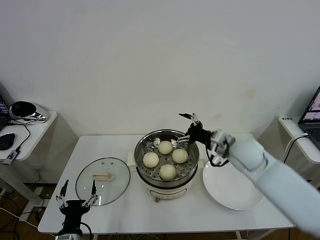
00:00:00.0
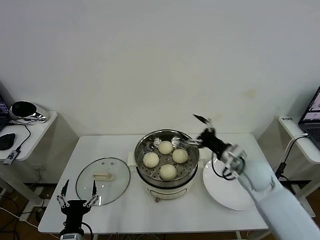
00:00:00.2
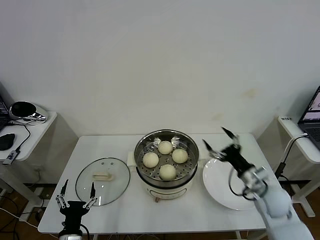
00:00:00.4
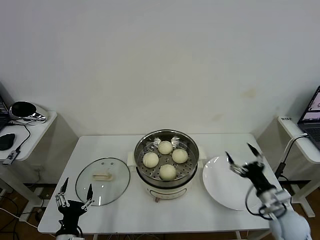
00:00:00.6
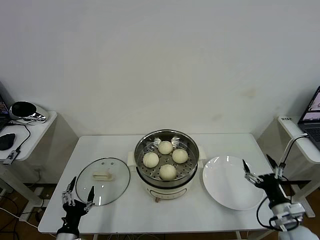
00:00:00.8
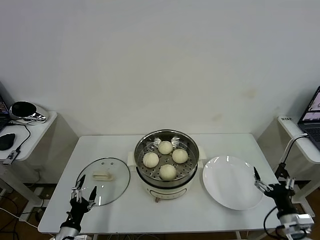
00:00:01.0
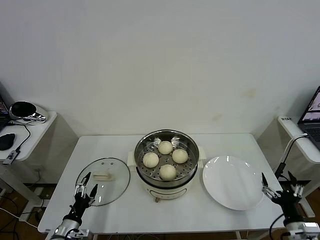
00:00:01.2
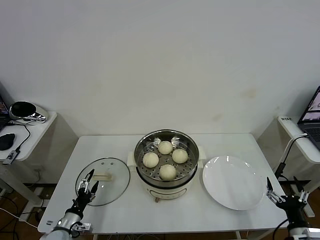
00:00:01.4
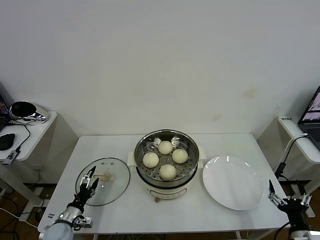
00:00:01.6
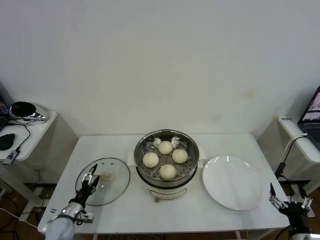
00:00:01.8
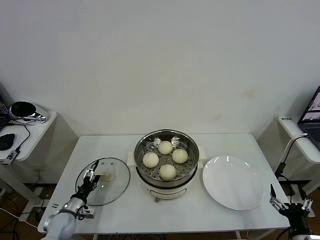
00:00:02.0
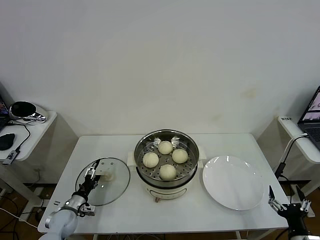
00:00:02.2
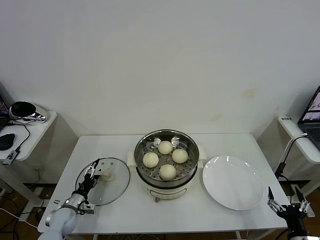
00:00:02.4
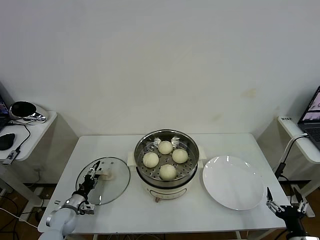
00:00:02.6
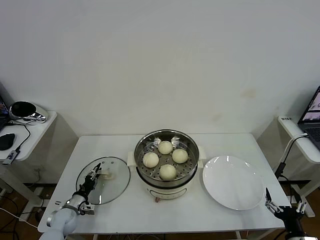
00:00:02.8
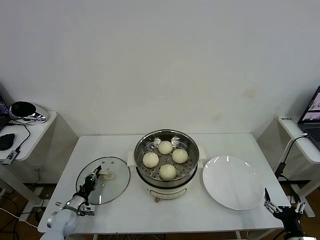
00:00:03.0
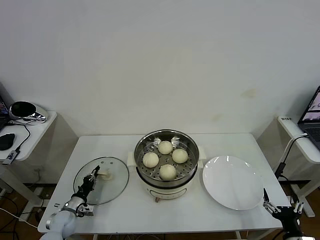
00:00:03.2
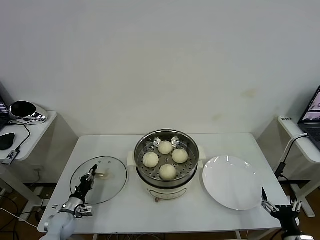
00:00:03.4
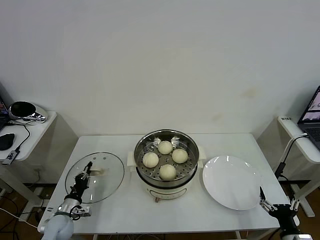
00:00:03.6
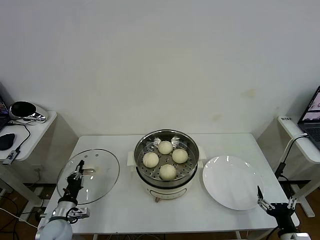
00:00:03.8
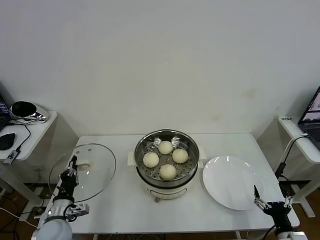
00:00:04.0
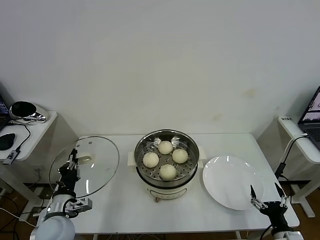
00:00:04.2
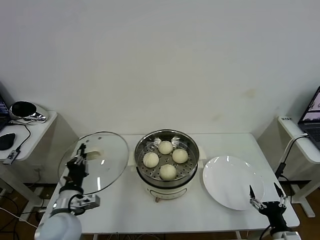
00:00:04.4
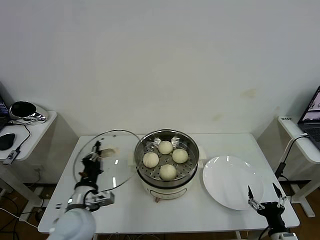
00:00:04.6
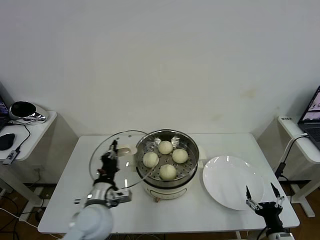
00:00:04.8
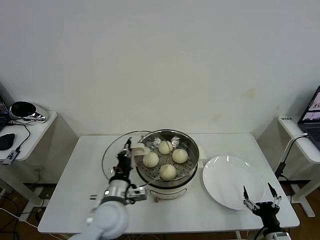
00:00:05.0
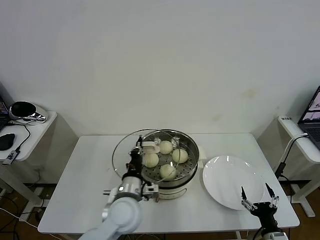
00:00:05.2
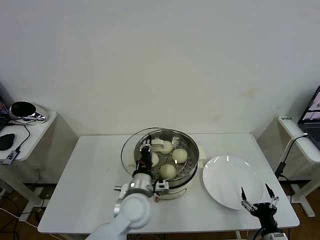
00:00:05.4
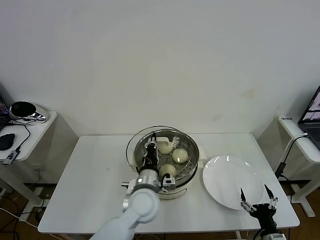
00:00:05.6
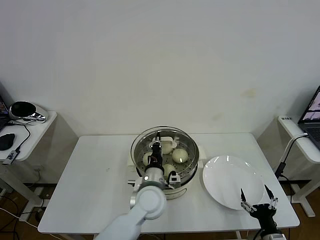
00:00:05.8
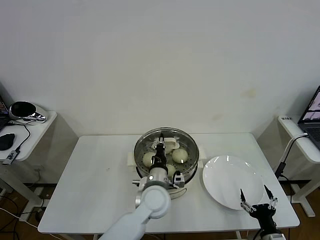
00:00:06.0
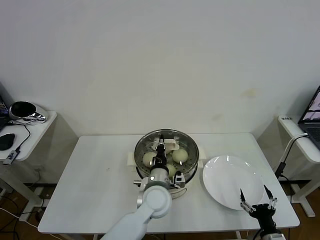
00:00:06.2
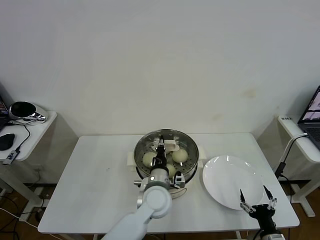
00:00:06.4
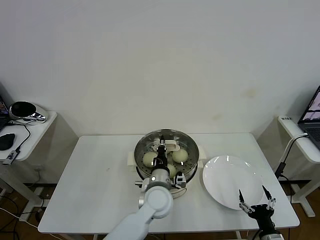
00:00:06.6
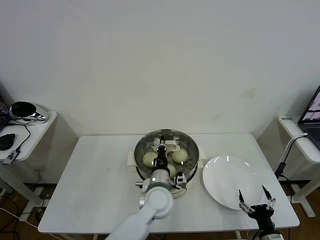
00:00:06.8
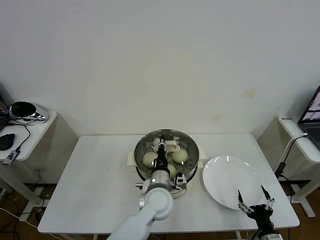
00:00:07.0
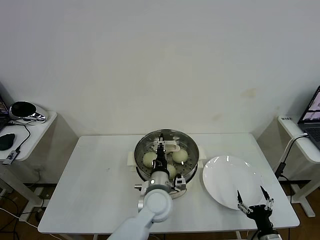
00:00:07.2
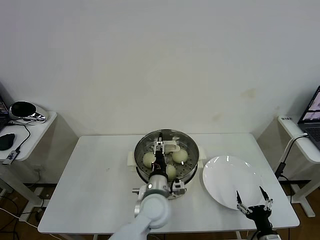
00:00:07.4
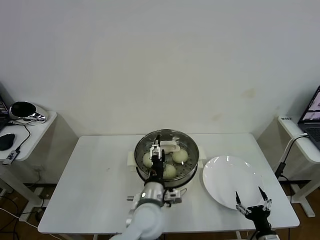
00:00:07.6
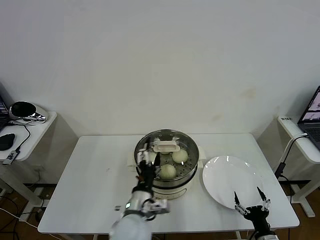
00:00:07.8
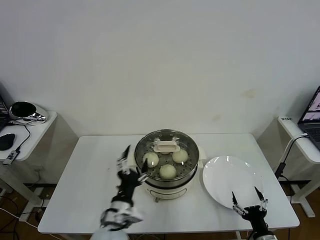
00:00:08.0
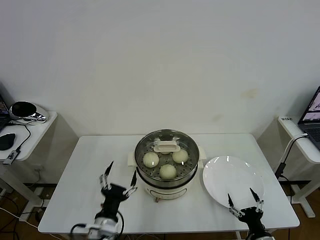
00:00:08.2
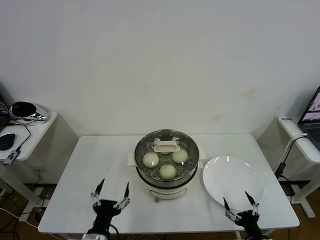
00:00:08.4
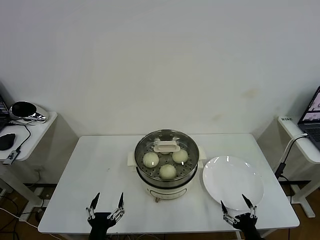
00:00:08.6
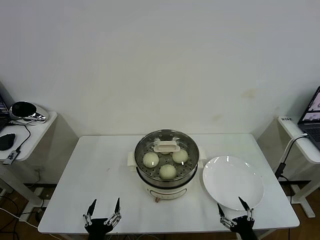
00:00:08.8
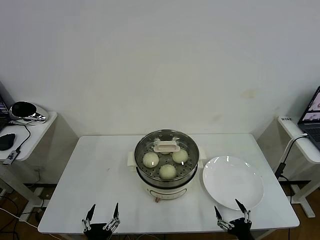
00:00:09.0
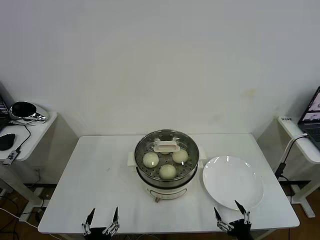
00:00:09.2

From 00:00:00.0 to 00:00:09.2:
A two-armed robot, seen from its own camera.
Task of the whole recording: take steamed baozi put them in steamer then cover it.
Step, from 00:00:00.0 to 00:00:03.2: Grasp the pot lid with left gripper.
Step, from 00:00:03.6 to 00:00:07.6: Place the pot lid on the steamer with left gripper.
From 00:00:00.0 to 00:00:01.6: The left gripper moves forward, to the left and downward, some 20 cm. Meanwhile the right gripper shifts roughly 35 cm backward, downward and to the right.
From 00:00:01.6 to 00:00:03.0: The left gripper is displaced forward by roughly 5 cm, and closes up.
From 00:00:03.0 to 00:00:04.6: The left gripper goes approximately 25 cm upward and to the right.
From 00:00:04.6 to 00:00:06.2: The left gripper goes approximately 20 cm to the right.
From 00:00:06.2 to 00:00:07.6: The left gripper opens up.
From 00:00:07.6 to 00:00:09.2: The right gripper shifts by some 5 cm; the left gripper goes approximately 30 cm backward, to the left and downward.

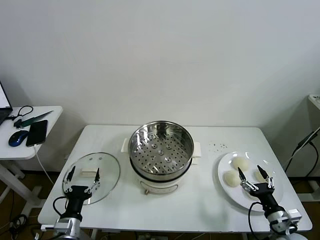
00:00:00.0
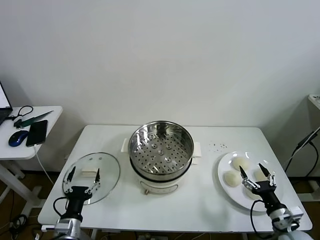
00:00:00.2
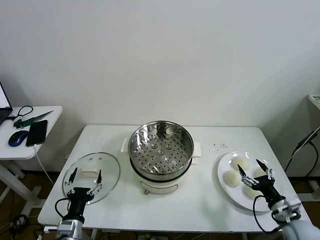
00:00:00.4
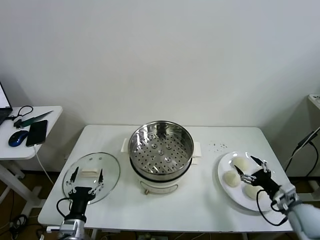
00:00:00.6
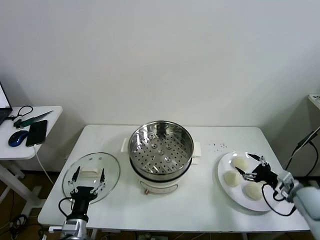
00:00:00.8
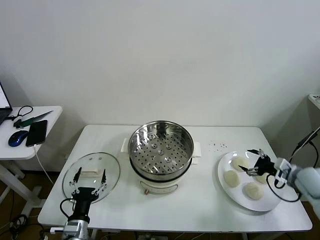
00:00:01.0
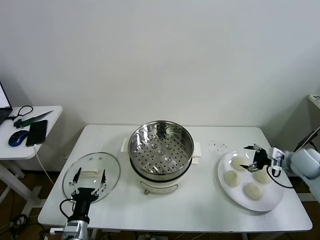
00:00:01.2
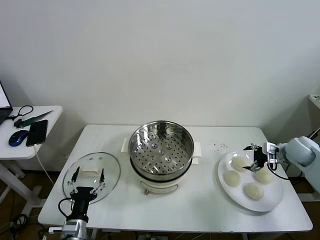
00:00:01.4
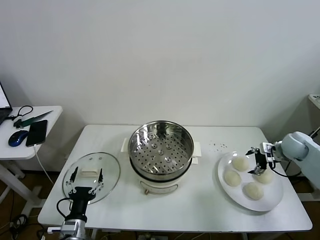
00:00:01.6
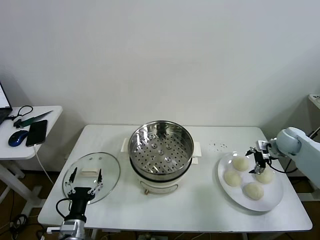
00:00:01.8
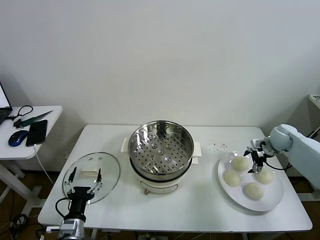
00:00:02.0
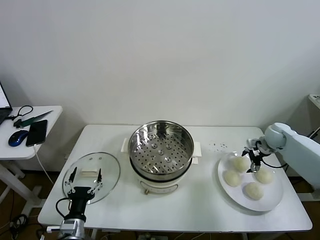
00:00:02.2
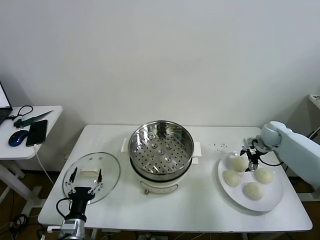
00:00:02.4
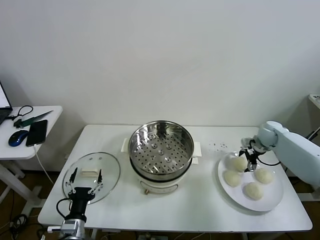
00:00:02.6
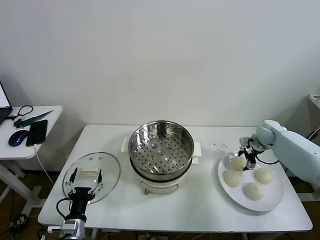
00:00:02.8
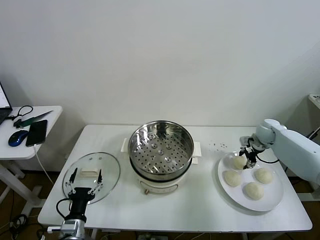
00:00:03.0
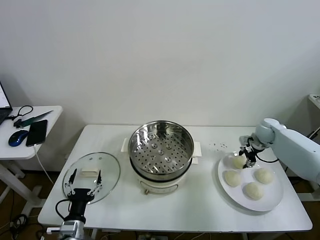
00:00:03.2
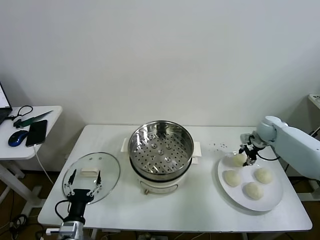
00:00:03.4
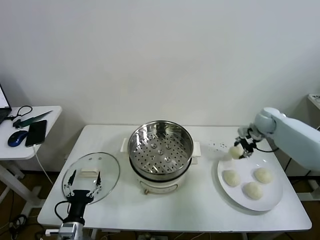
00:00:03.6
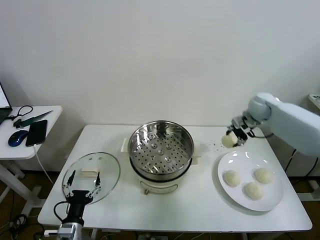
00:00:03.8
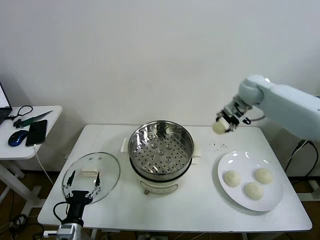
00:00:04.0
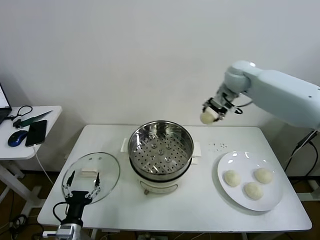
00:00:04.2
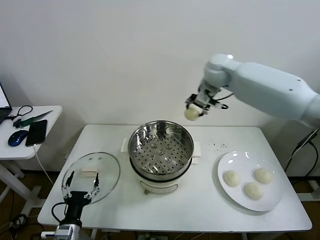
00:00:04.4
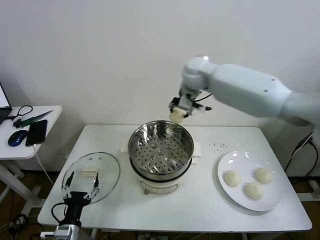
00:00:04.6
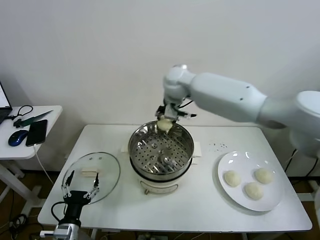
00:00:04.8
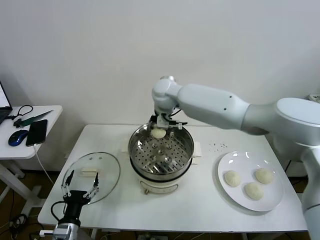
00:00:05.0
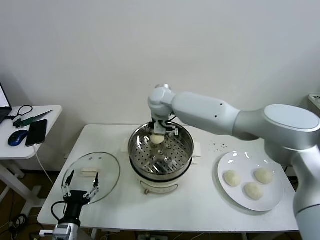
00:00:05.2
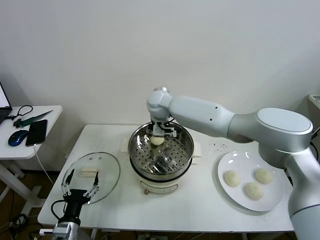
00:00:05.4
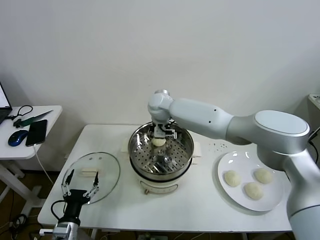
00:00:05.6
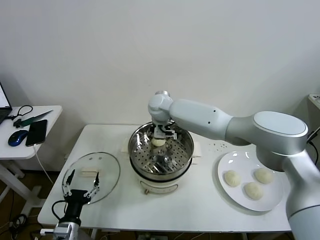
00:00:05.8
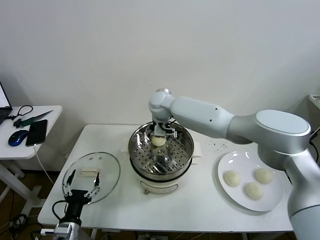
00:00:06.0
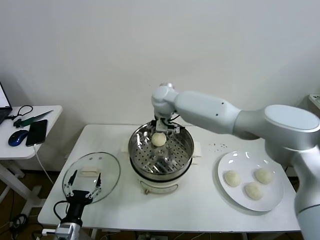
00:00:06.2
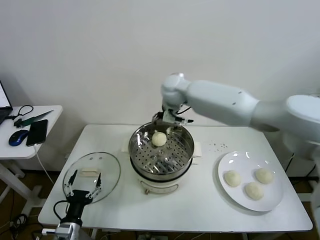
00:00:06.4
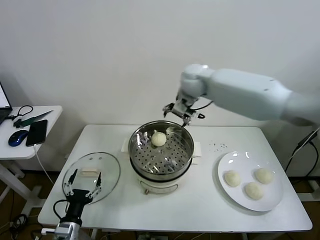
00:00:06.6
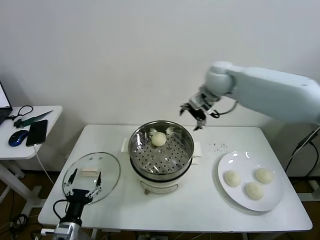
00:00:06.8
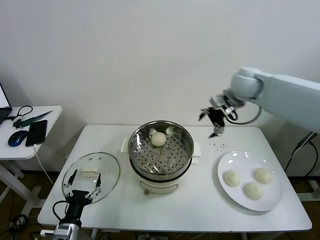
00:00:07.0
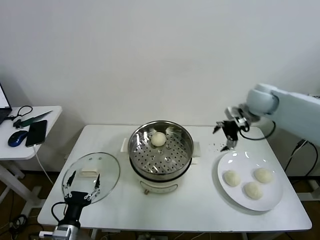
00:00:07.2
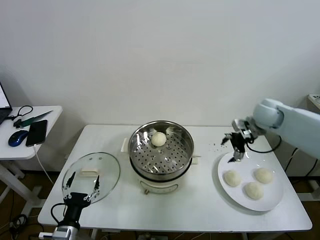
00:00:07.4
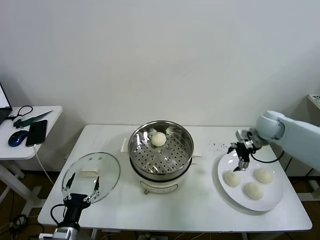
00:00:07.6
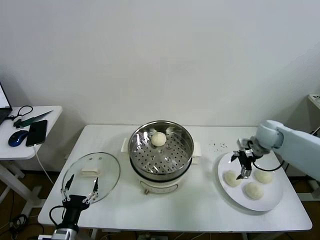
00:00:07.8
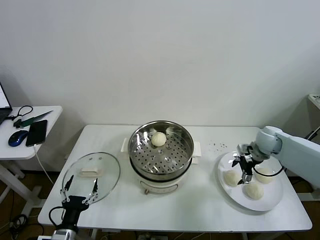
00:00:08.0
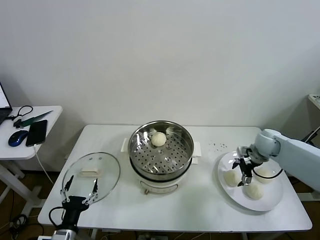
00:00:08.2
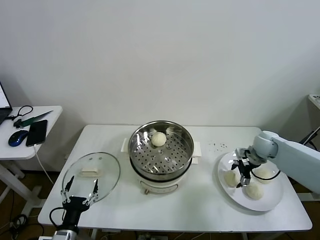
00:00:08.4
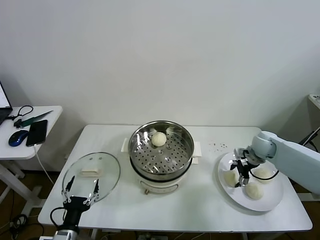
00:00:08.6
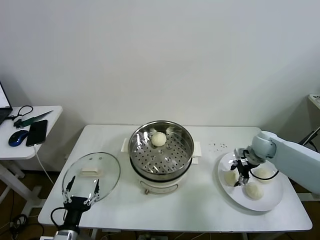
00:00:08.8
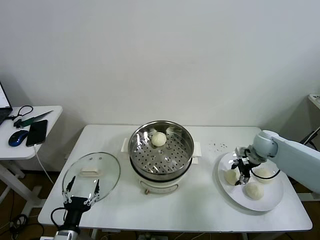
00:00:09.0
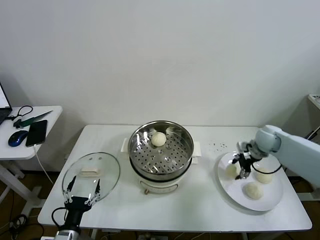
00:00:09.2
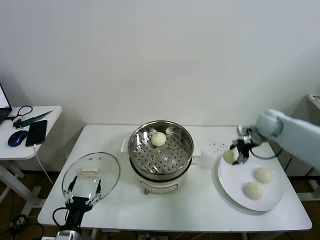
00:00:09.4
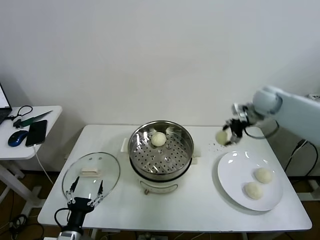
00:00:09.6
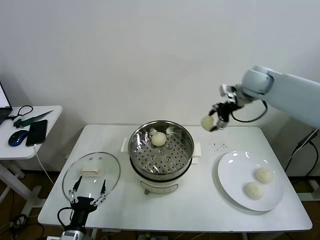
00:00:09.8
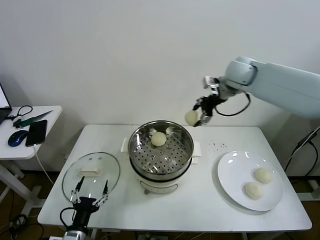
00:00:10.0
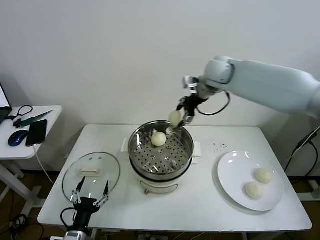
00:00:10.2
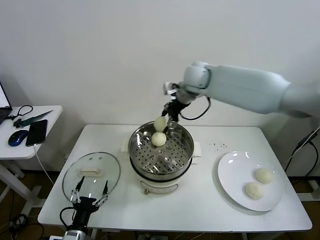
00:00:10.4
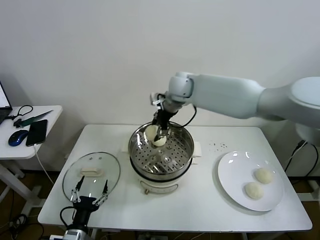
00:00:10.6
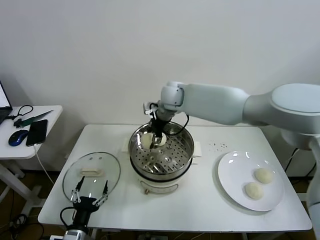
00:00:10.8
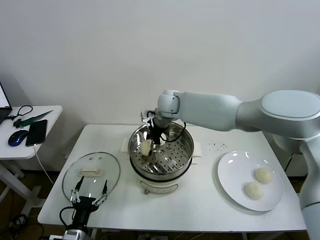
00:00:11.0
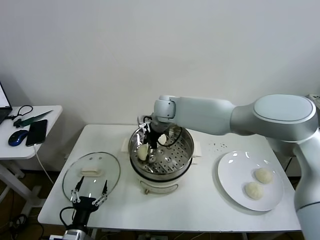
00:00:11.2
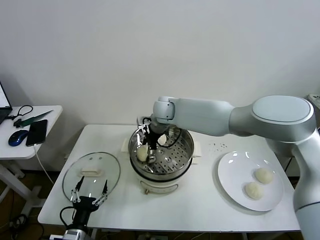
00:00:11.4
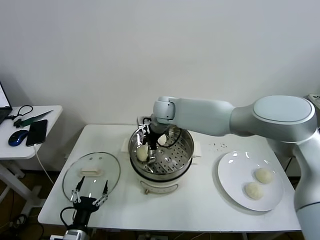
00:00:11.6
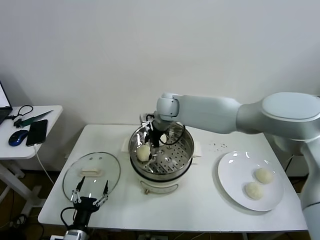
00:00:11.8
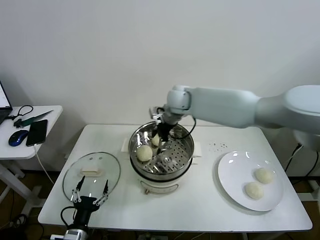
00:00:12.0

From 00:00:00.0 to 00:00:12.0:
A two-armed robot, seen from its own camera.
Task of the whole recording: take steamed baozi put them in steamer then cover it.
Step, from 00:00:00.0 to 00:00:02.8: Grasp the baozi in the plate with right gripper.
Step, from 00:00:03.0 to 00:00:06.0: Place the baozi on the steamer with right gripper.
Step, from 00:00:06.2 to 00:00:08.6: Grasp the baozi in the plate with right gripper.
Step, from 00:00:08.8 to 00:00:11.6: Place the baozi on the steamer with right gripper.
From 00:00:01.6 to 00:00:03.0: The right gripper travels forward and to the left by approximately 10 cm, and closes up.
From 00:00:03.0 to 00:00:04.4: The right gripper shifts about 40 cm to the left and upward.
From 00:00:04.4 to 00:00:06.0: The right gripper moves to the left and downward, about 20 cm, and opens.
From 00:00:06.0 to 00:00:07.6: The right gripper heads to the right, covering about 40 cm.
From 00:00:07.6 to 00:00:09.0: The right gripper travels downward by some 5 cm, and closes up.
From 00:00:09.0 to 00:00:10.4: The right gripper shifts roughly 40 cm to the left and upward.
From 00:00:10.4 to 00:00:12.0: The right gripper opens its fingers.
